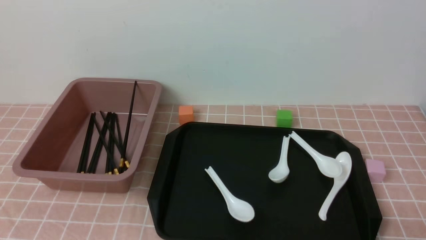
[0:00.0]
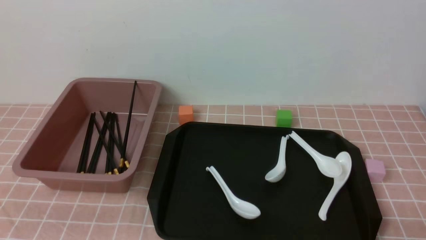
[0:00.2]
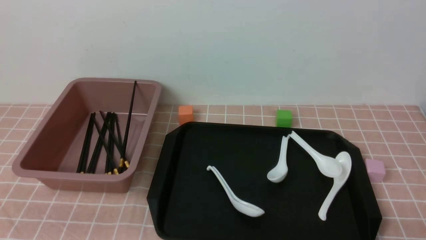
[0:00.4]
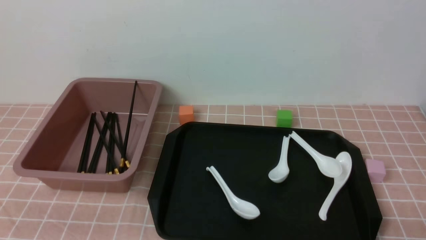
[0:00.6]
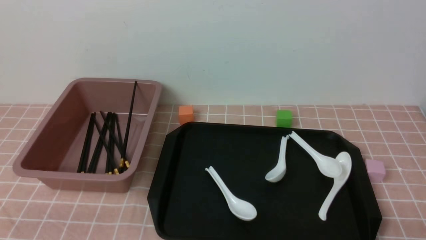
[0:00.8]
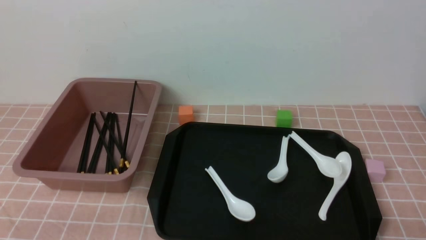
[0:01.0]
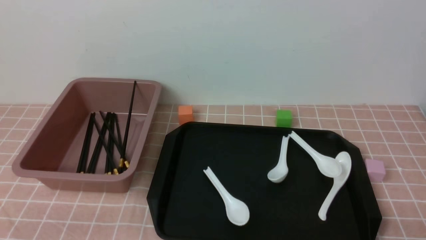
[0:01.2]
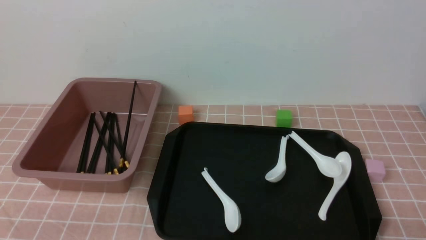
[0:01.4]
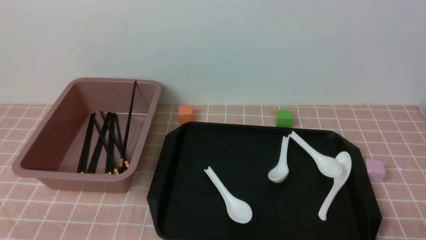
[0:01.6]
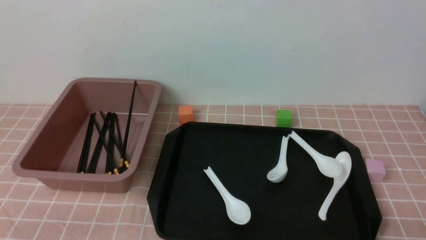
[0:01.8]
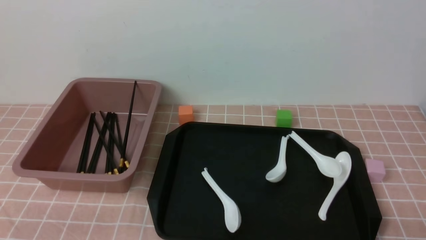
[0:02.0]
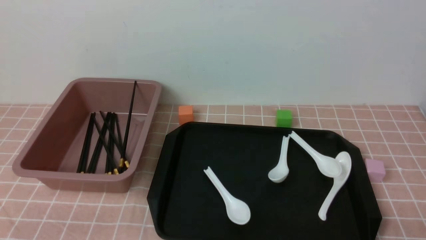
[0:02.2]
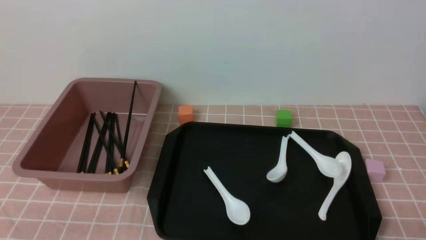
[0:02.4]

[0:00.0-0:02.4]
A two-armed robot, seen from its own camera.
0:00.0 to 0:01.2: The left gripper travels downward by some 15 cm.
0:01.2 to 0:02.4: Both grippers stay about where they are.
